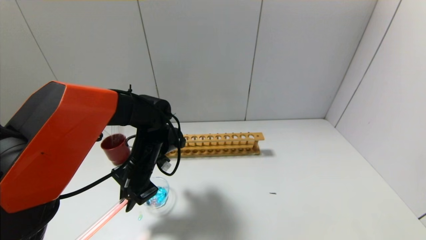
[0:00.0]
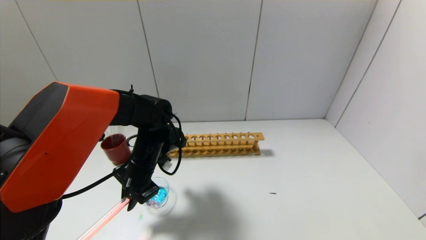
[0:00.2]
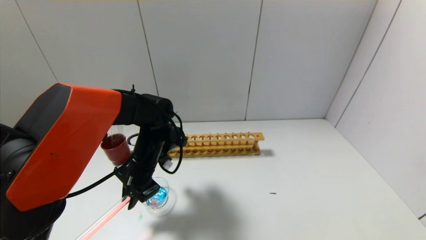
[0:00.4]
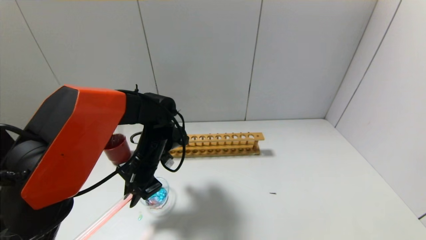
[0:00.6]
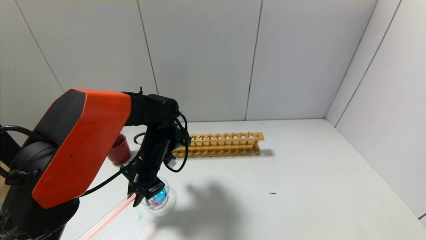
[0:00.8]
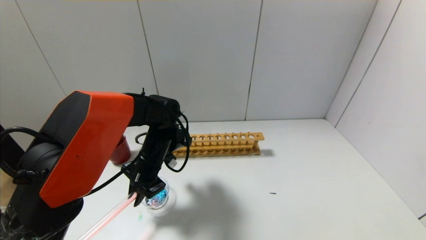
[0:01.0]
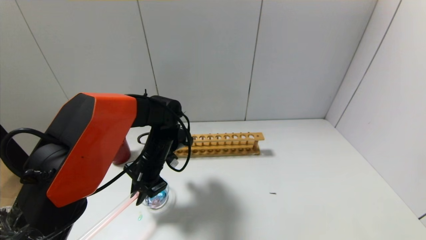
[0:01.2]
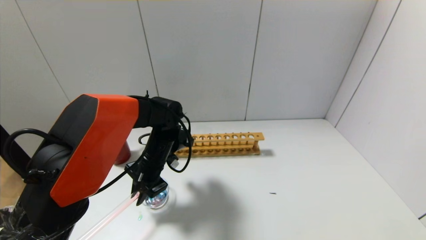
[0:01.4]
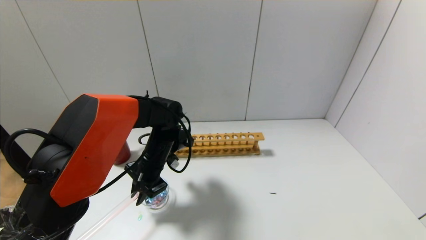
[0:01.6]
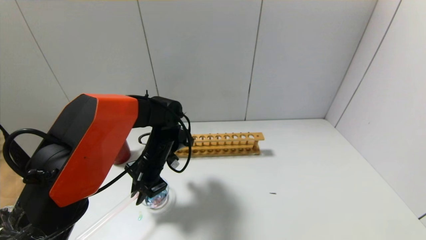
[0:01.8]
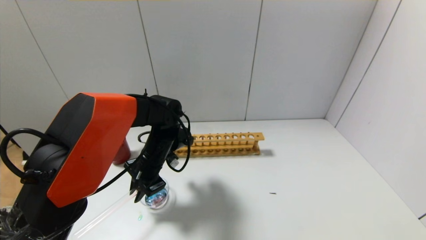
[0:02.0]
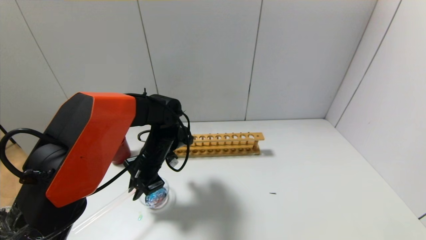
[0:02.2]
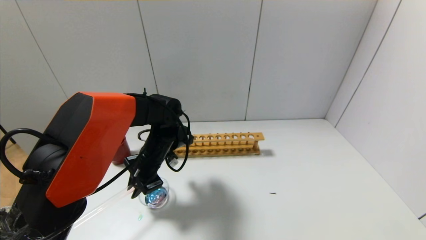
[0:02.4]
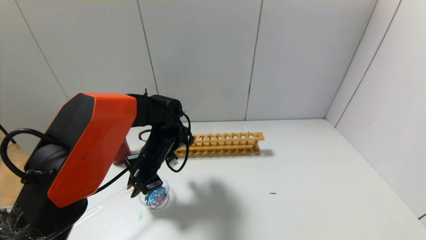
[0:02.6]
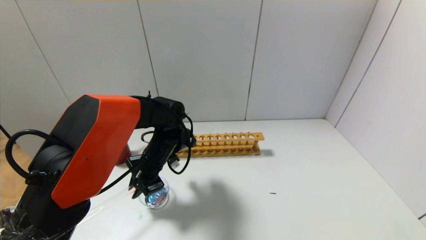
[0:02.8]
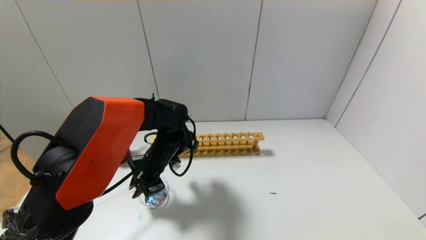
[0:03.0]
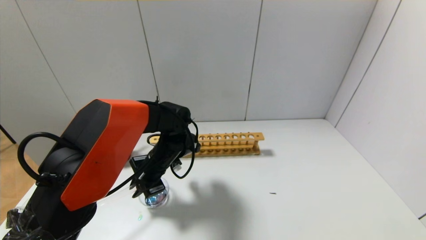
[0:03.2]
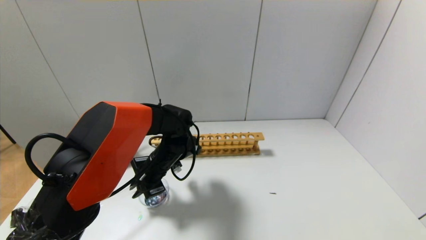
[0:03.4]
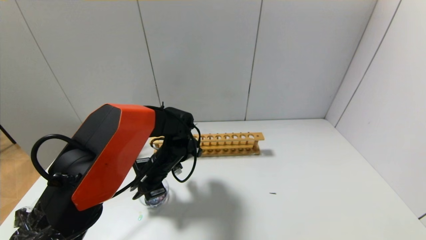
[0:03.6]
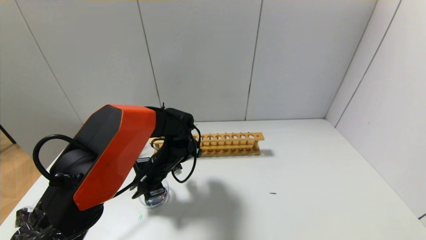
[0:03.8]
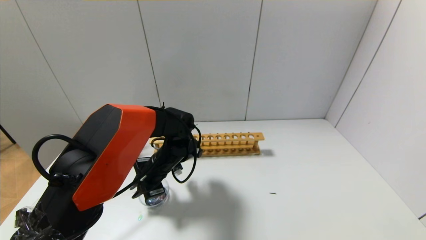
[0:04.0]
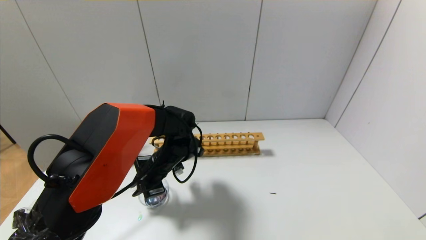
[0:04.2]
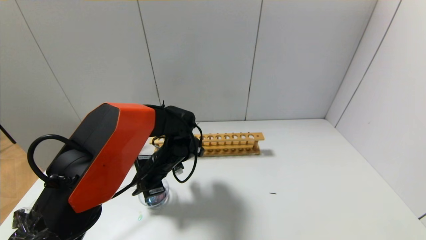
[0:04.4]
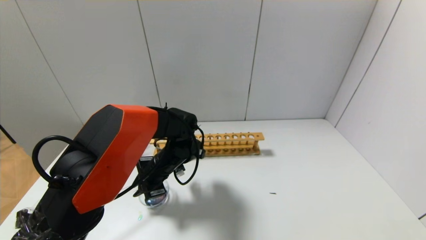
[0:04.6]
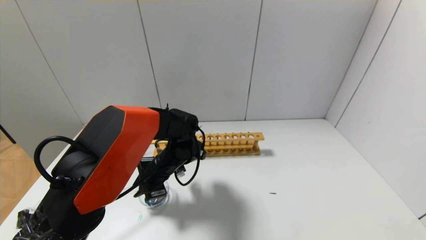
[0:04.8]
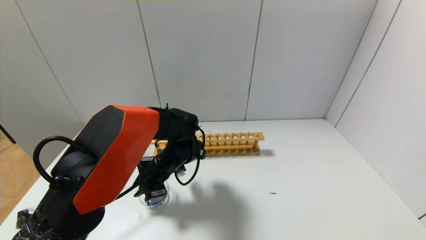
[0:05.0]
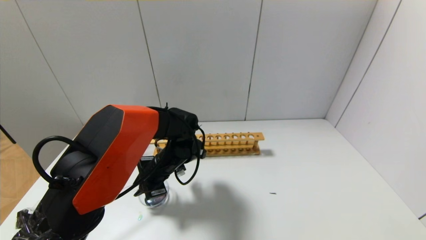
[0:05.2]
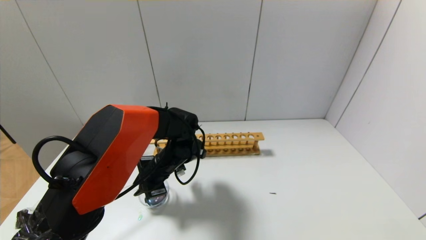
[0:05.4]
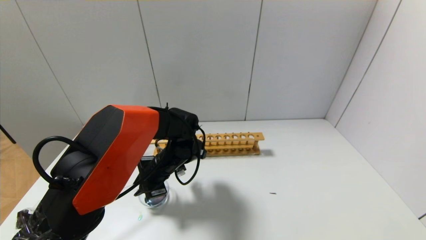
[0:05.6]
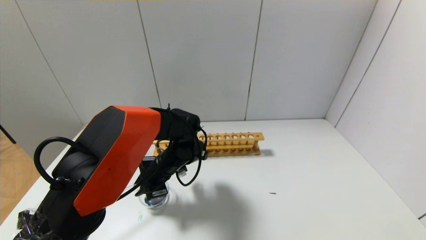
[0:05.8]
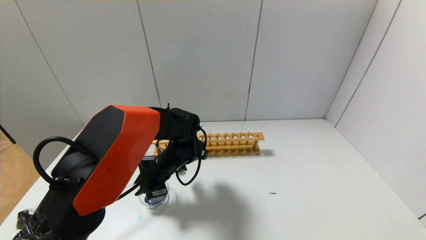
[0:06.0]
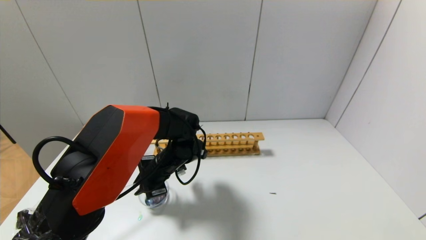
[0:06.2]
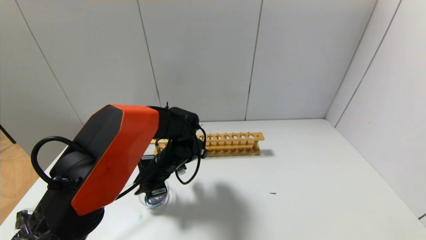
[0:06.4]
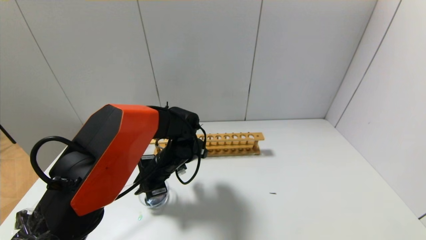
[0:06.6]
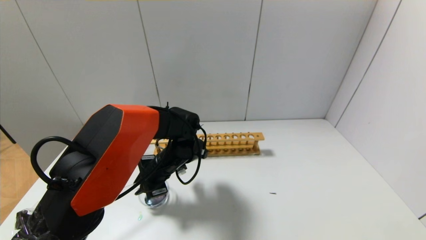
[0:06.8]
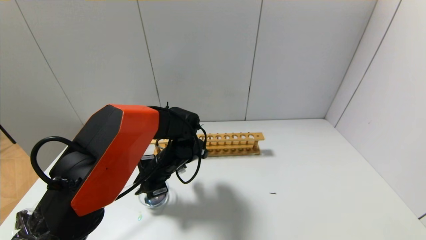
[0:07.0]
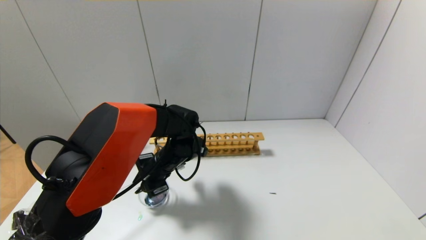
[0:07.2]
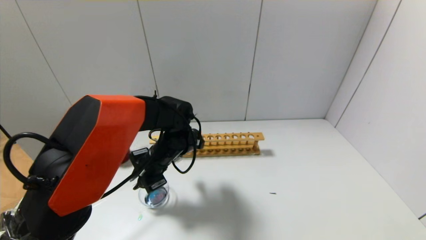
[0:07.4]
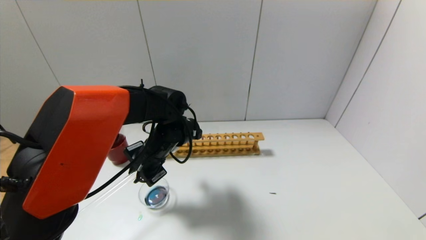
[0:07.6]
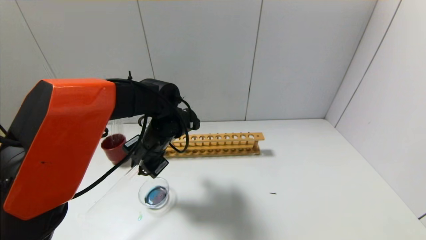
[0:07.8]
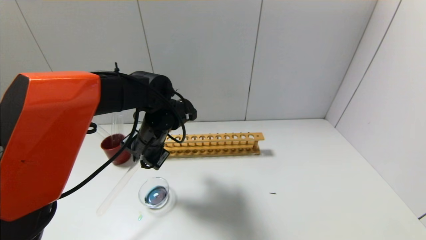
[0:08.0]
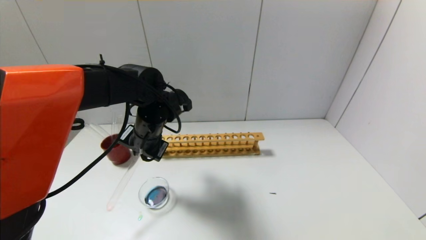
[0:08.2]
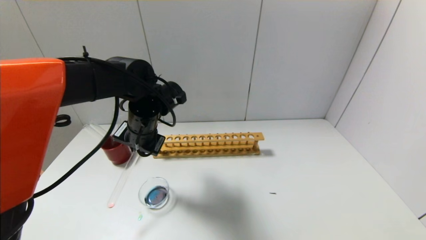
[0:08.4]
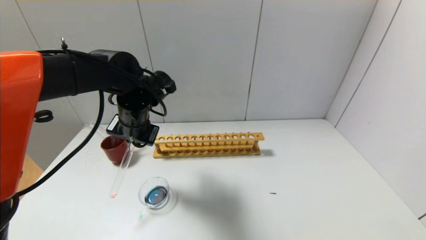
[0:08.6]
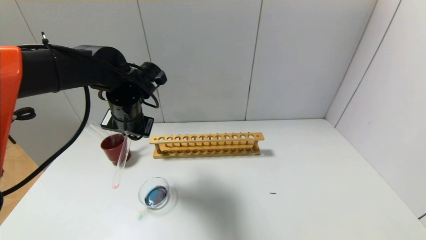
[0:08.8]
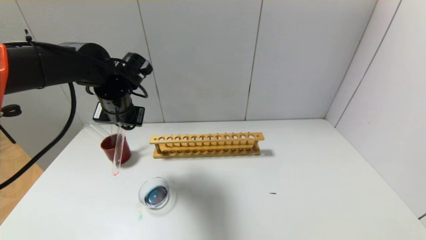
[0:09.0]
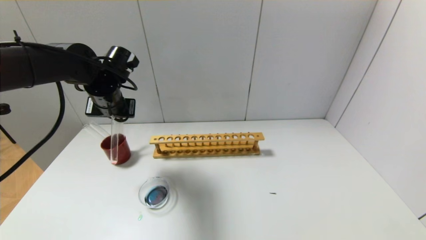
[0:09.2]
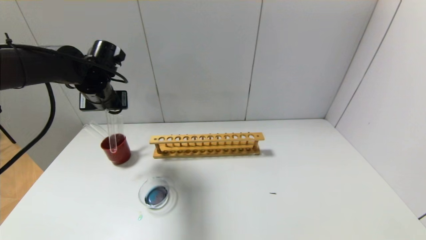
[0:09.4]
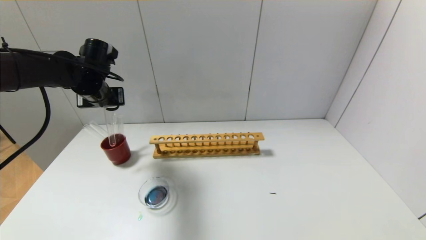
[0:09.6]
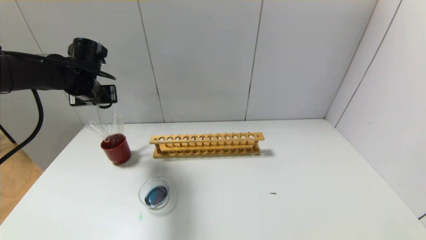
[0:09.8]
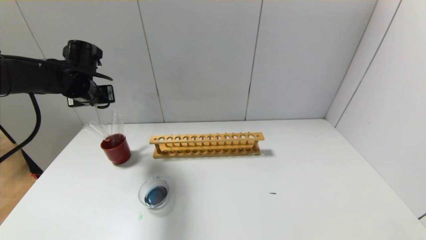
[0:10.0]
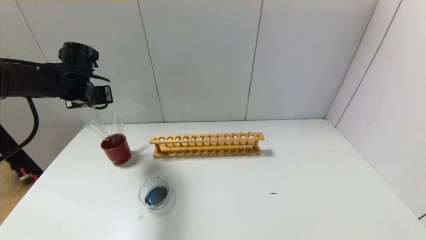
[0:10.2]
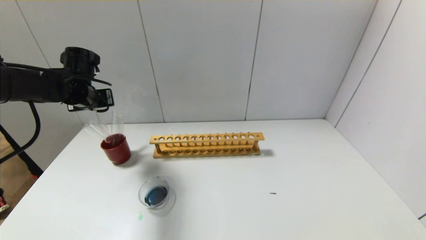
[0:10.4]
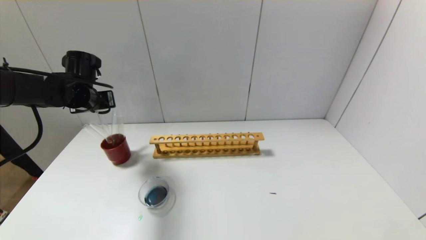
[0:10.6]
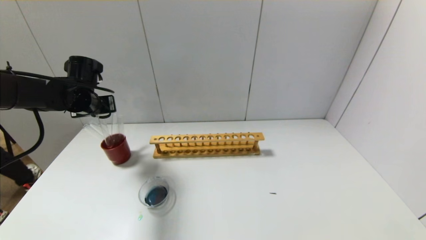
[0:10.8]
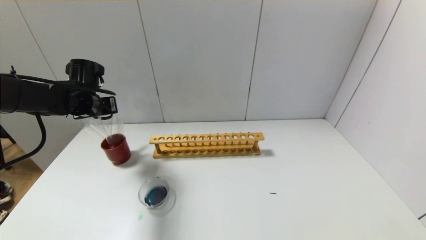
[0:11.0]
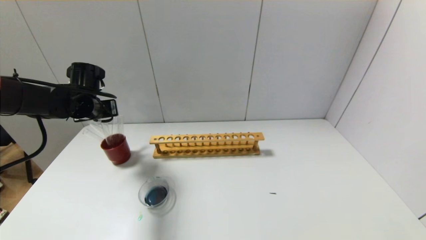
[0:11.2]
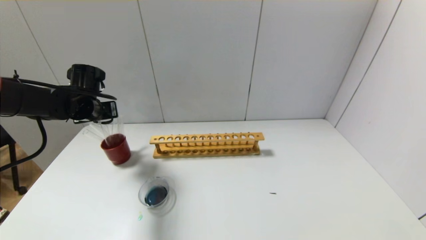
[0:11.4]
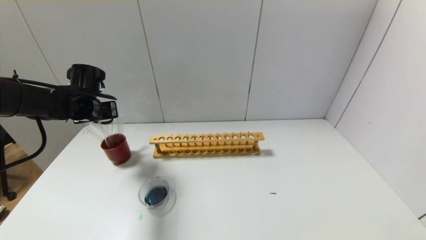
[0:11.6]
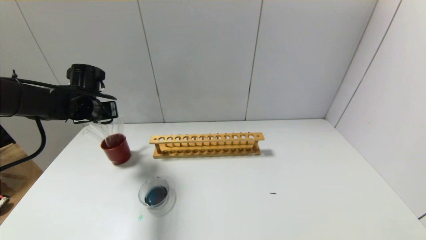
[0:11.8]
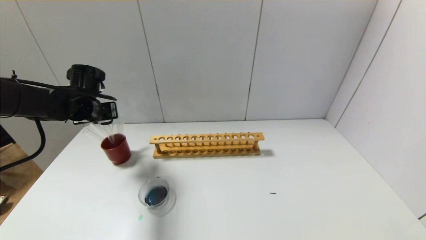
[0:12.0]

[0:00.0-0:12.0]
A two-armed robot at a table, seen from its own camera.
Step, 0:00.0 to 0:07.4: Pour the red reagent into the graduated cylinder with the left gripper.
Step, 0:07.6 to 0:12.0: Place the test tube into the brown cup with the left gripper.
0:00.0 to 0:03.0: The grippers stay close to where they were, moving slightly.
0:03.0 to 0:04.4: The grippers move only a little.
0:04.4 to 0:06.0: Both grippers stay about where they are.
0:06.0 to 0:07.6: The left gripper heads upward, covering some 5 cm.
0:07.6 to 0:09.0: The left gripper goes about 15 cm upward and to the left.
0:09.0 to 0:10.4: The left gripper goes approximately 10 cm to the left.
0:10.4 to 0:12.0: The grippers make only small movements.

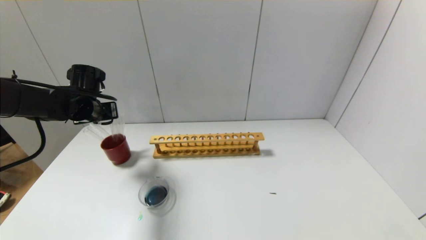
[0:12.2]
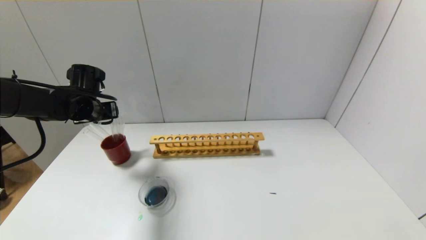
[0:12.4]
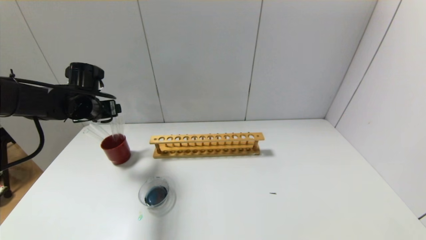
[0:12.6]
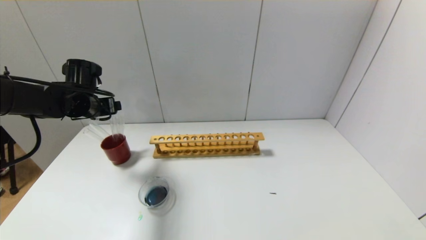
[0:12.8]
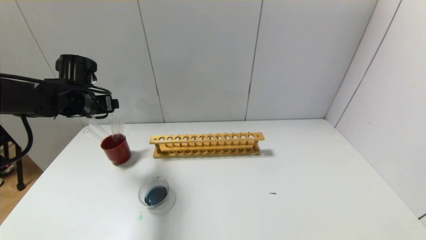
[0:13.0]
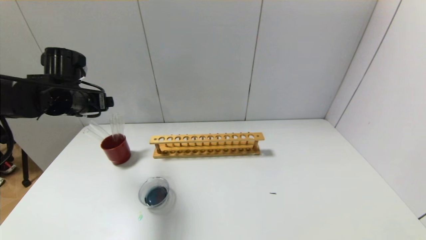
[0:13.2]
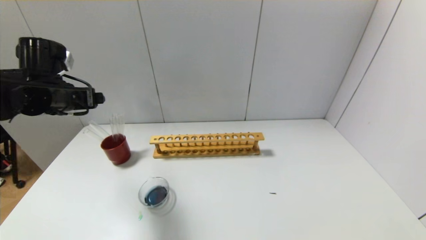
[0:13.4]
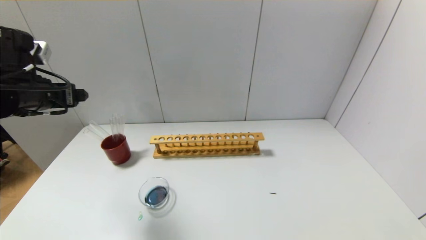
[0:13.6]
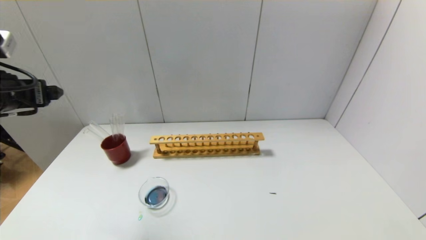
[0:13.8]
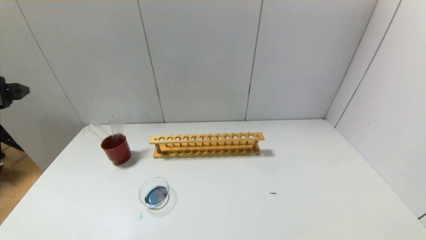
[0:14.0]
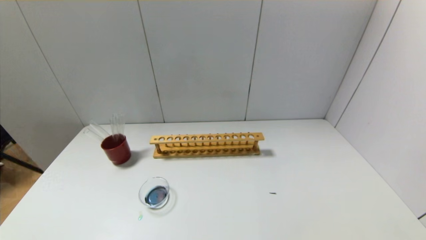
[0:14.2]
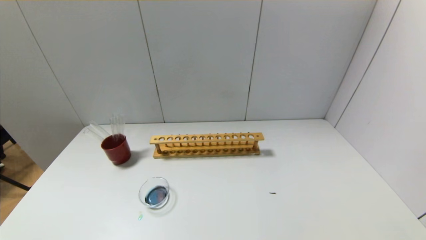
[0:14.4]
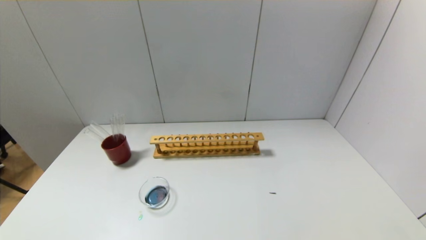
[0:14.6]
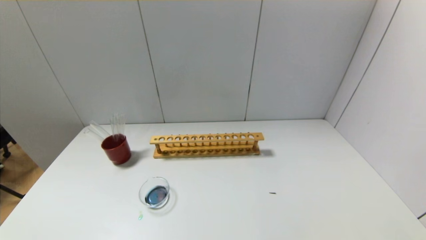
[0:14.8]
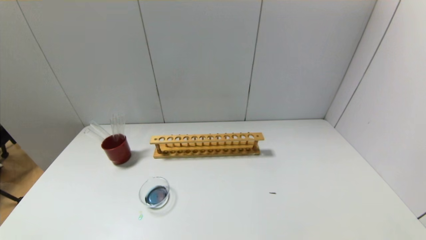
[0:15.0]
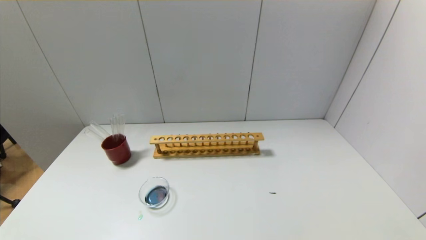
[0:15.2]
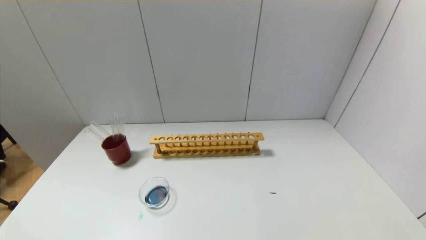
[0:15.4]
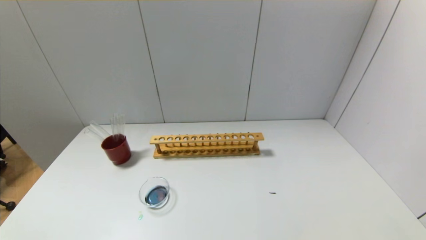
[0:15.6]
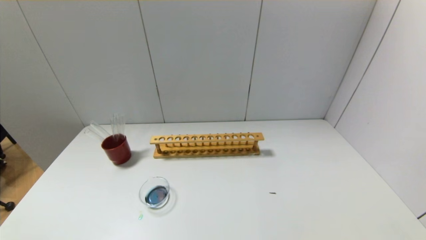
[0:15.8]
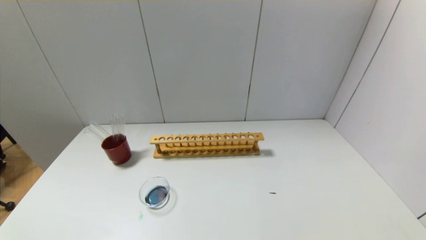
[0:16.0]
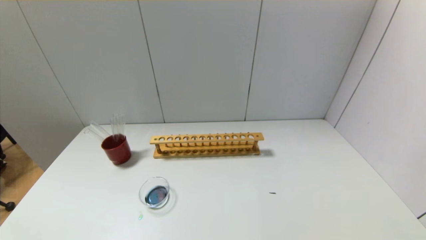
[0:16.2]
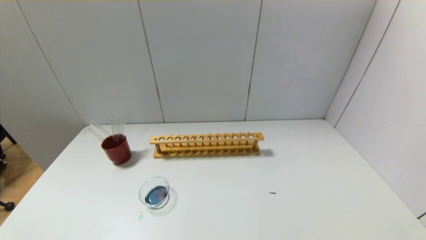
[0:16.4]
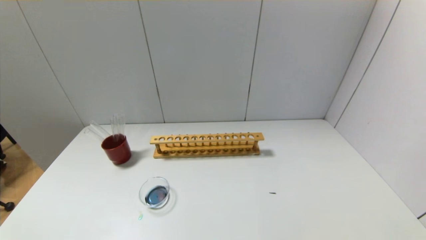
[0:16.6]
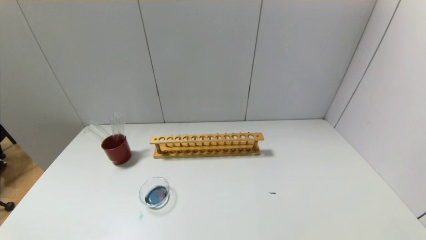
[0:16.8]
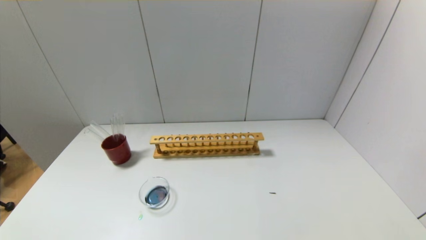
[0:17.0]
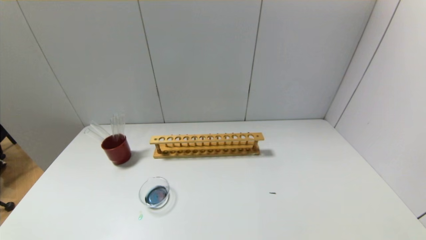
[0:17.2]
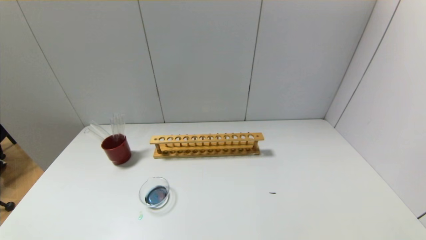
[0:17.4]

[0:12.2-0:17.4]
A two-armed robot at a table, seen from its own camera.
0:12.2 to 0:14.0: The left gripper heads backward and upward, covering about 25 cm, and opens its fingers.
0:14.0 to 0:15.6: The left gripper shifts approximately 30 cm backward and downward.
